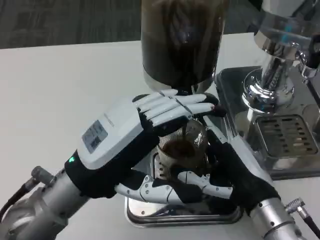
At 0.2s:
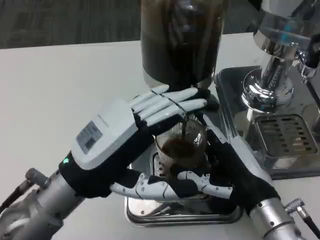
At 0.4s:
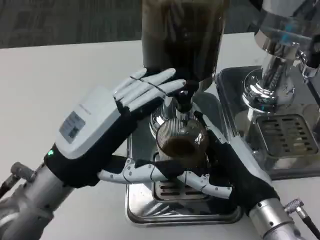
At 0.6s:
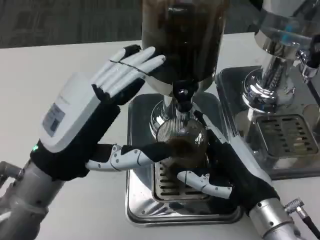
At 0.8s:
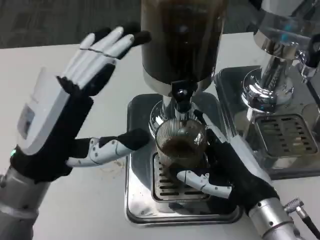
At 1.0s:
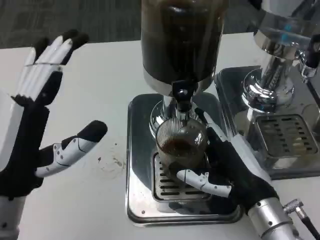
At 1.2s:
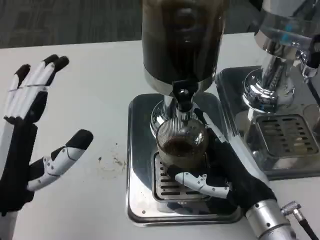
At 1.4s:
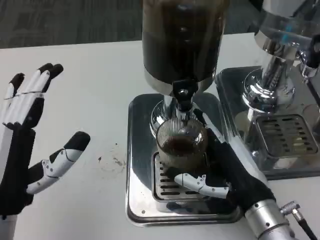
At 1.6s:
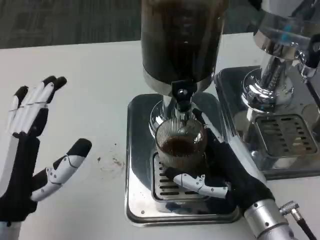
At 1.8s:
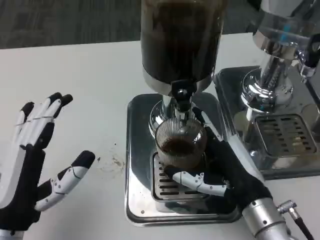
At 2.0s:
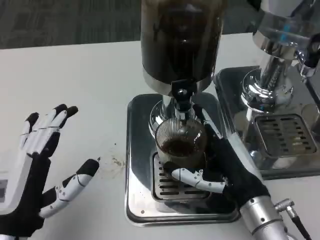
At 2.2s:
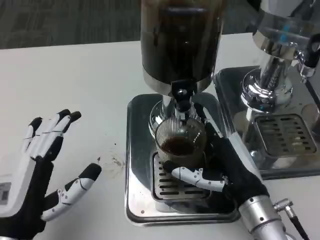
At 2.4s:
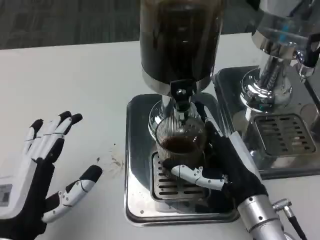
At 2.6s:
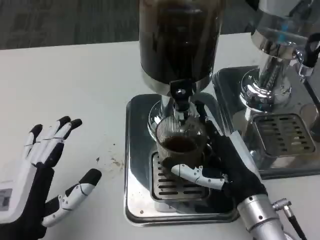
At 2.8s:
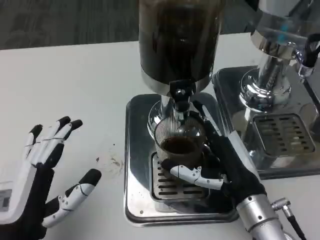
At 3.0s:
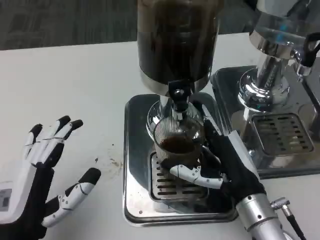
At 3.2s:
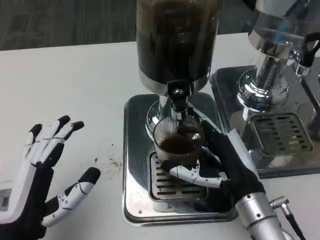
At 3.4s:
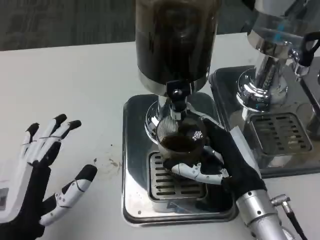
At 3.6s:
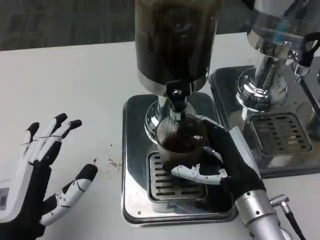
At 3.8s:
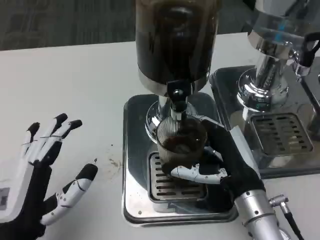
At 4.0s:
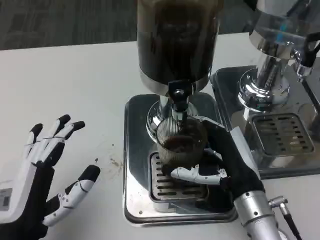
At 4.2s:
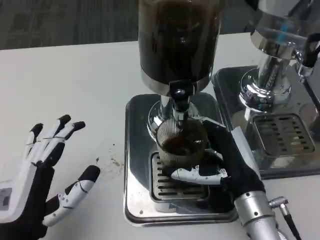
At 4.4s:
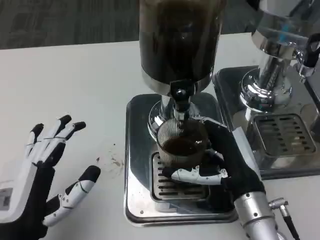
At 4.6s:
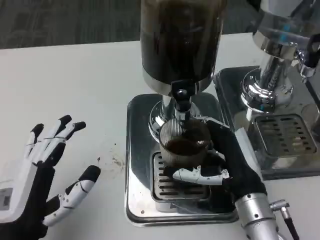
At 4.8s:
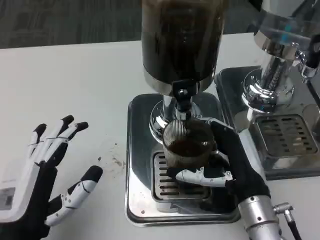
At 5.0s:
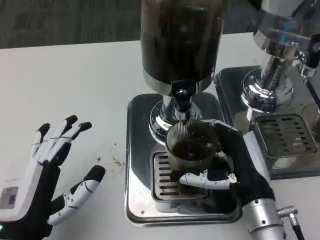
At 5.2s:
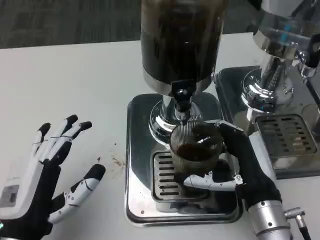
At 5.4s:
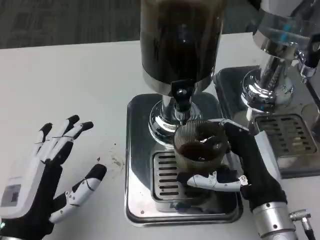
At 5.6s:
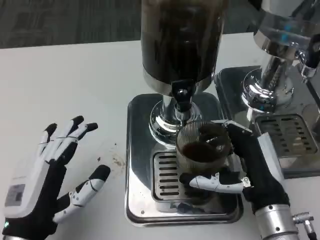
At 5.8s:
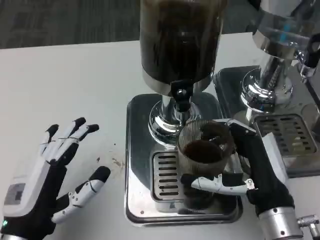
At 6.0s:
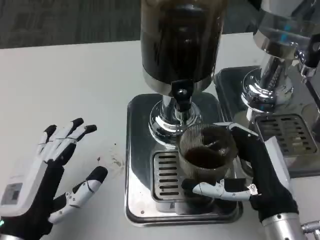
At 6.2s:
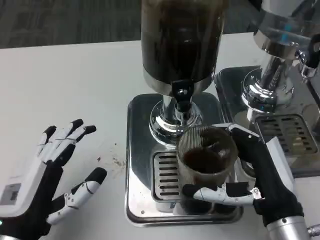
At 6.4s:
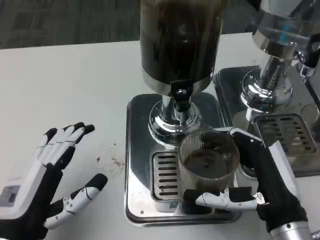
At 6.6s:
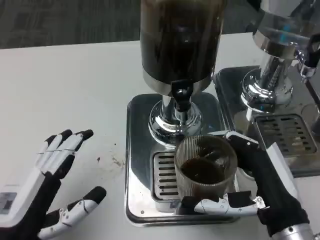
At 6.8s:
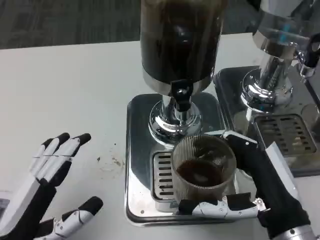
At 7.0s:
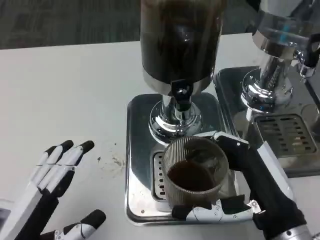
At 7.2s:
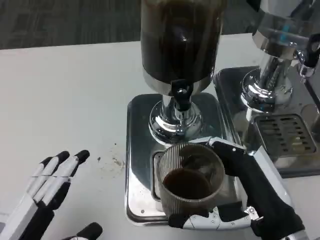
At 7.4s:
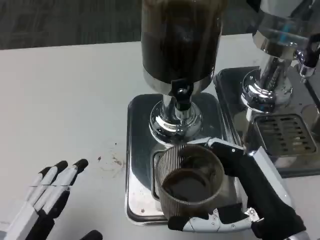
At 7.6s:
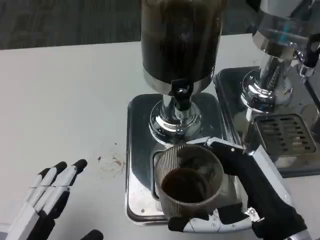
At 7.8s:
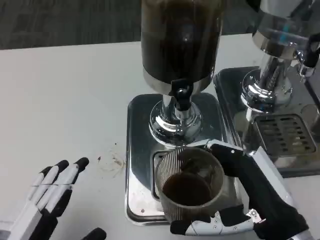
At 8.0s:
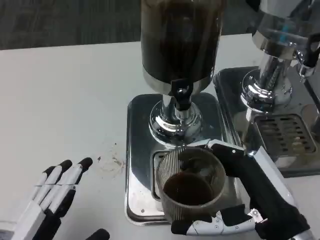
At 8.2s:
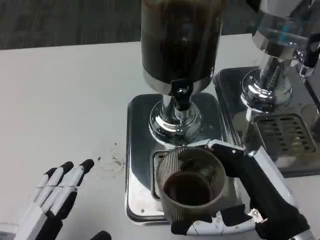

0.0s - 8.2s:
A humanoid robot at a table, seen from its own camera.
Task of the whole recording: Grasp the cup under the faucet to collect the drink, then remove the cup.
0.0s - 1.6s: The left hand travels to the left, downward and backward by some 10 cm.
5.0s - 6.6s: The right hand goes roughly 5 cm backward.
6.6s - 8.2s: The left hand shifts some 5 cm backward.

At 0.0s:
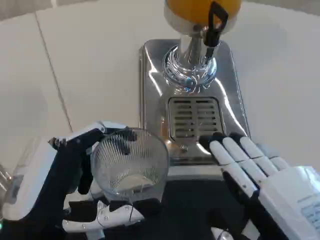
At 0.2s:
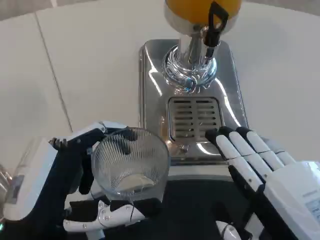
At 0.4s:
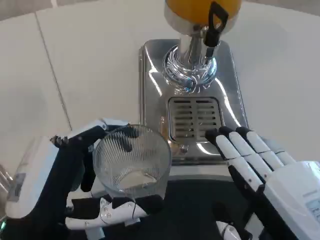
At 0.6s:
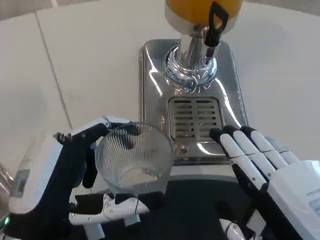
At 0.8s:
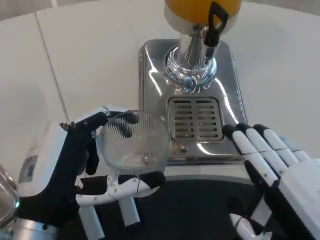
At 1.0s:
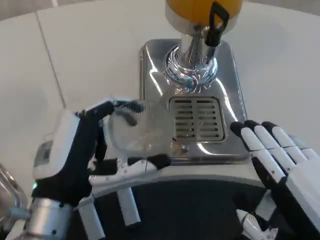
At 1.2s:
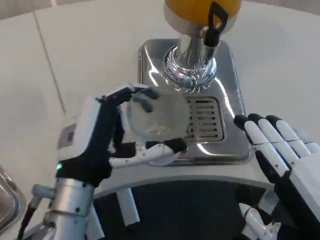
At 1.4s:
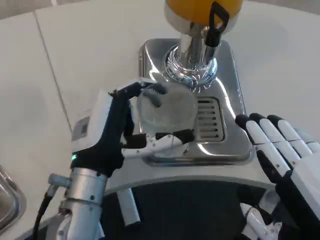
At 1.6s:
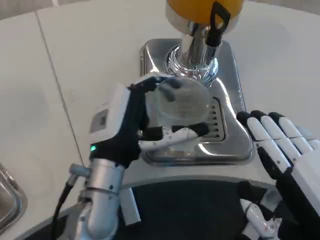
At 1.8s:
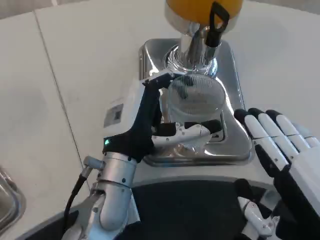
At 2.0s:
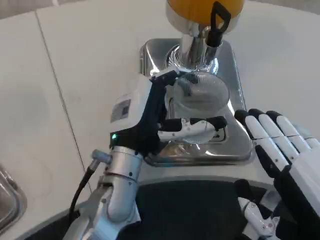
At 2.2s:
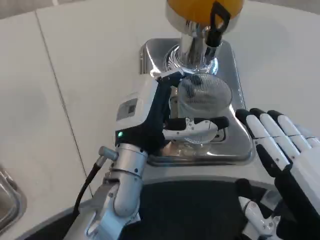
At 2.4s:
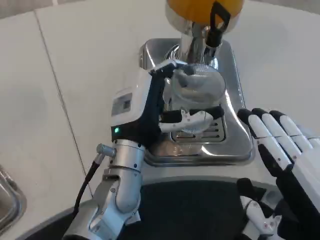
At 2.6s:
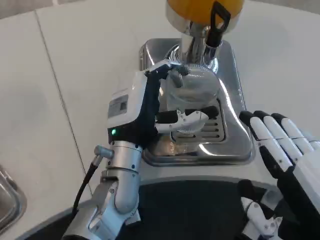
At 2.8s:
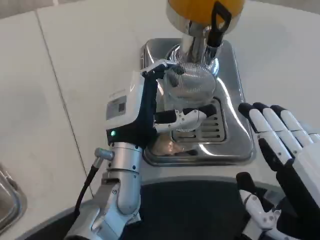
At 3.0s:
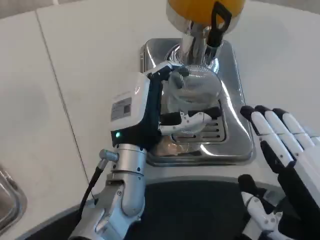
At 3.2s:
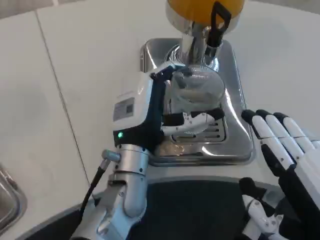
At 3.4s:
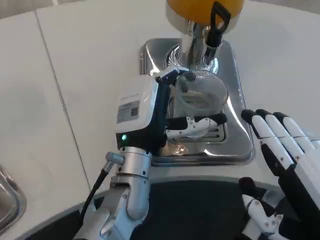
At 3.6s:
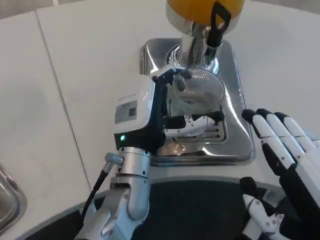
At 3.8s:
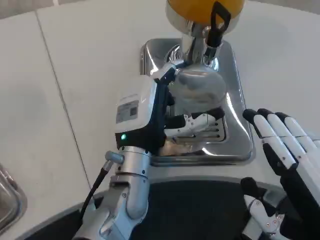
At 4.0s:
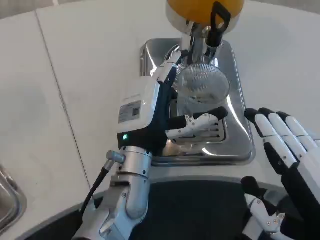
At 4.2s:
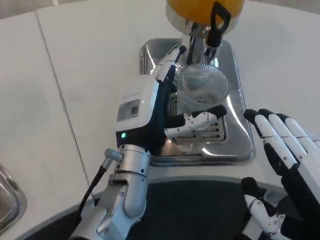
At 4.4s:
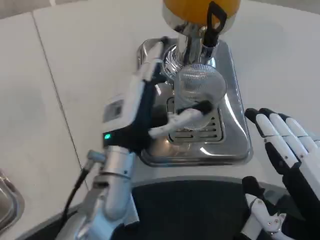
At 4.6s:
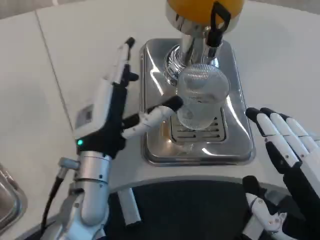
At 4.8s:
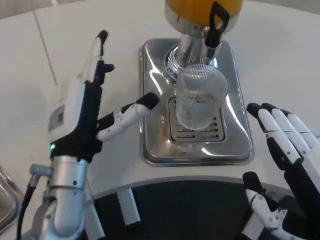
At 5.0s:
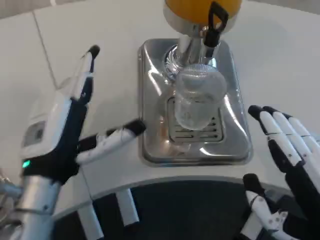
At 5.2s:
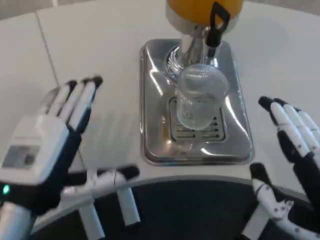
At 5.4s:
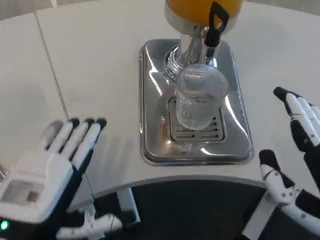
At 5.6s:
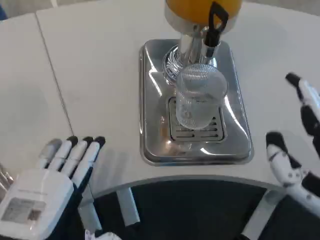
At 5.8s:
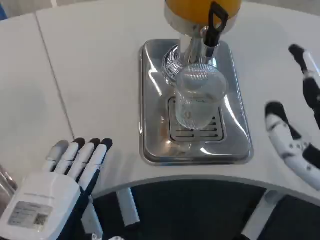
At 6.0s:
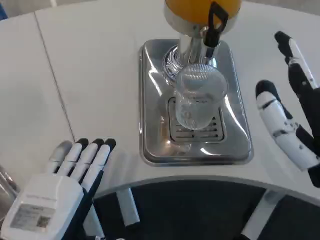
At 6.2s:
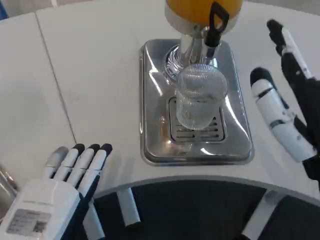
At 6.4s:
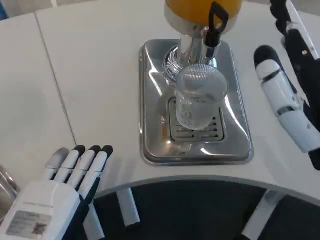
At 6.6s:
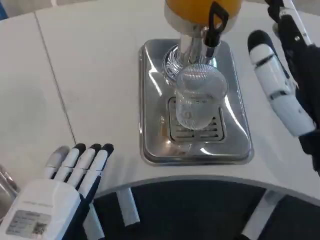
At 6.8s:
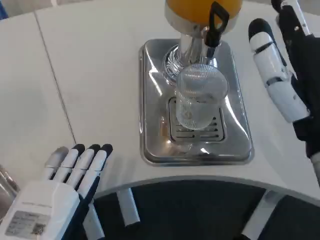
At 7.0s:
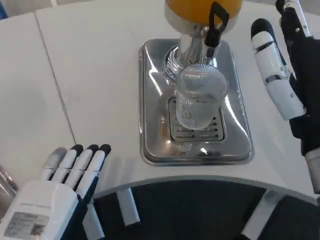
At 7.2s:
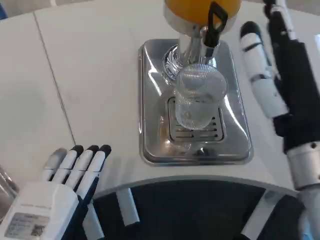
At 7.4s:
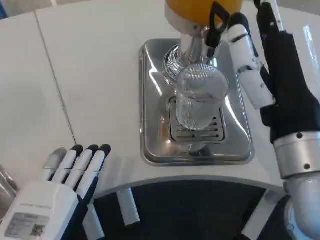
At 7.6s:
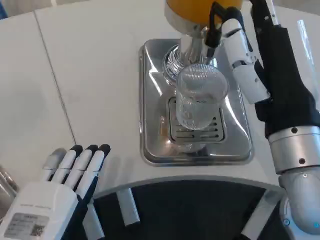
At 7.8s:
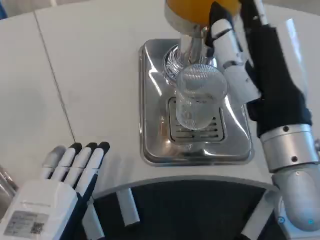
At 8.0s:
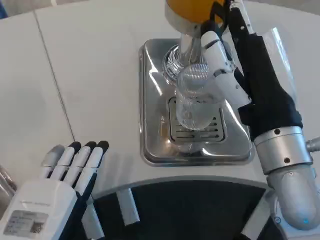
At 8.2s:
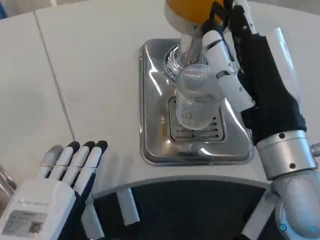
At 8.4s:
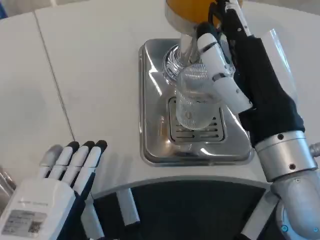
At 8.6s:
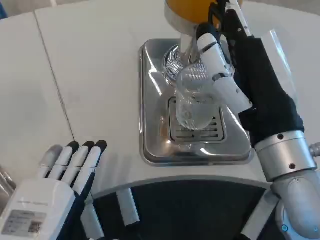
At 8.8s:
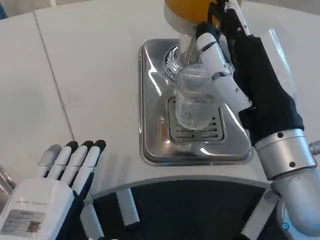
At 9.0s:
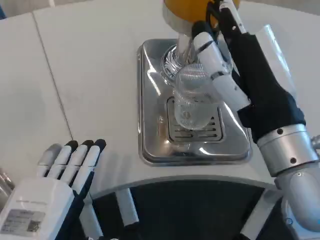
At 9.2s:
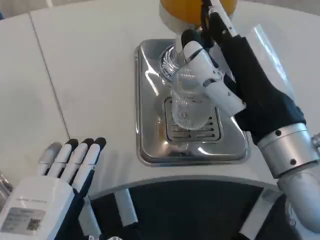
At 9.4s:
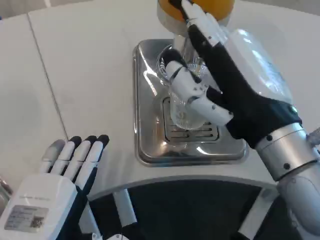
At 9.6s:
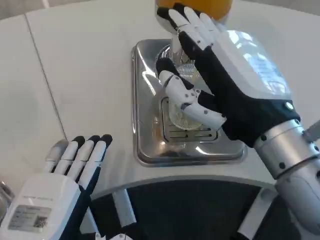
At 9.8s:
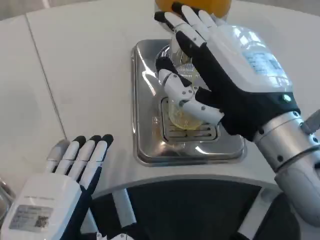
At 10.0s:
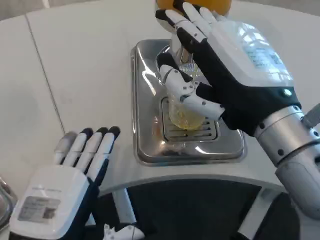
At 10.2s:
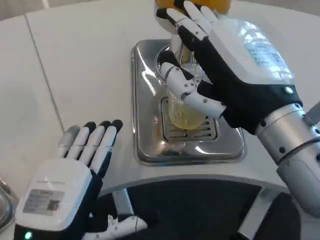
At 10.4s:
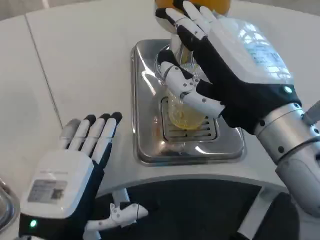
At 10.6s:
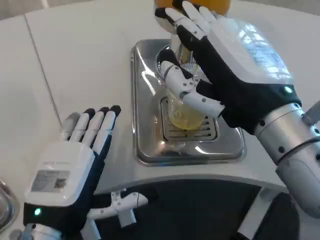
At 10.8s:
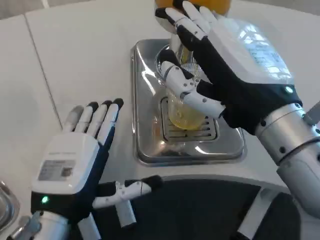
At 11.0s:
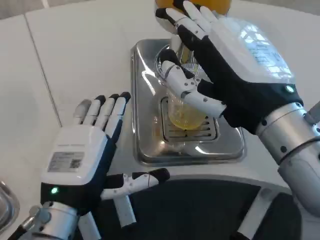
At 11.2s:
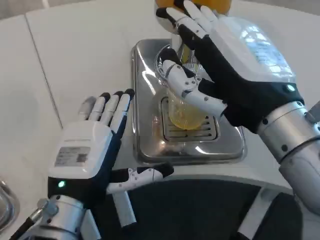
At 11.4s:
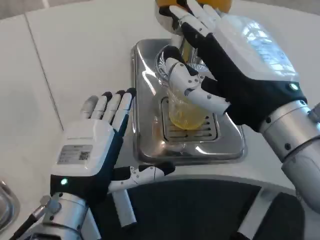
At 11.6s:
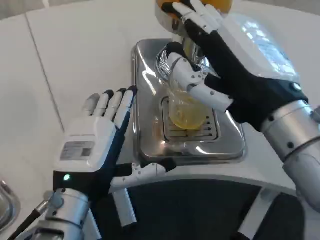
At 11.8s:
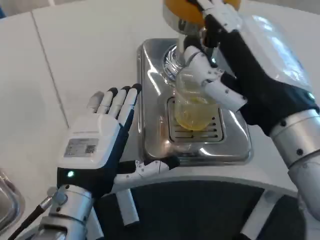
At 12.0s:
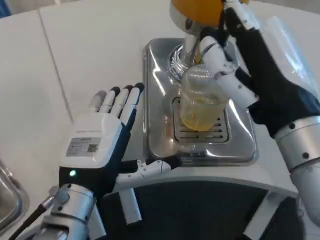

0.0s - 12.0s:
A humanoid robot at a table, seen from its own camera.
Task of the whole recording: Grasp the cup under the faucet to collect the drink, then remove the cup.
0.0s - 1.6s: The left hand travels forward and to the right by some 15 cm.
4.4s - 6.0s: The right hand travels forward by roughly 5 cm, while the left hand is displaced backward and to the left by some 20 cm.
6.0s - 7.6s: The right hand is displaced forward by some 5 cm.
10.4s - 12.0s: The left hand heads forward, covering roughly 5 cm.

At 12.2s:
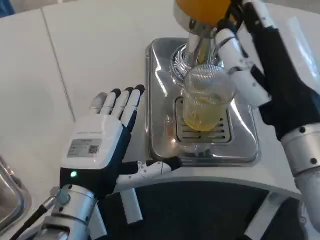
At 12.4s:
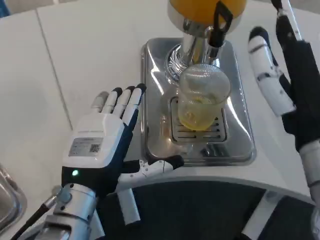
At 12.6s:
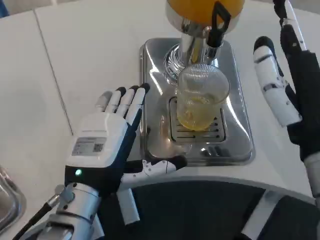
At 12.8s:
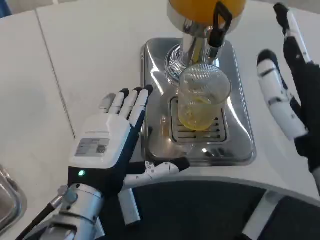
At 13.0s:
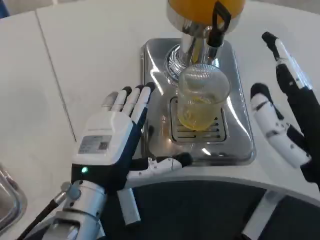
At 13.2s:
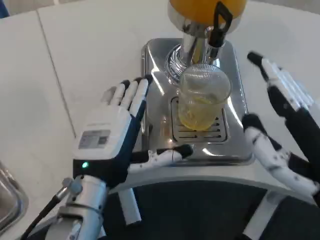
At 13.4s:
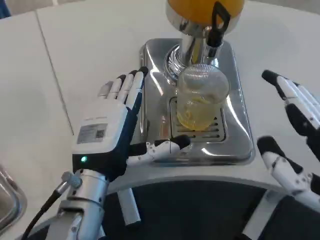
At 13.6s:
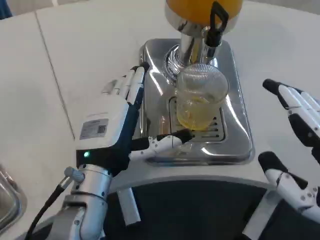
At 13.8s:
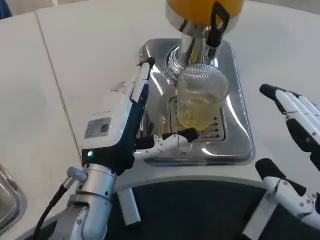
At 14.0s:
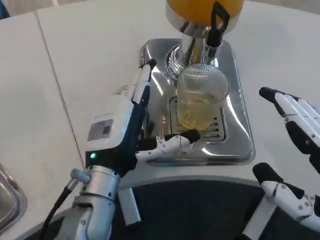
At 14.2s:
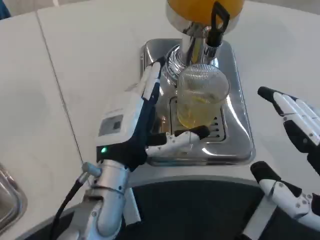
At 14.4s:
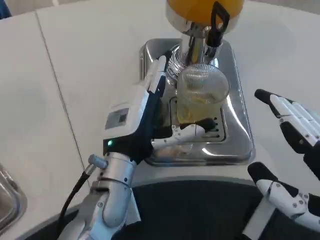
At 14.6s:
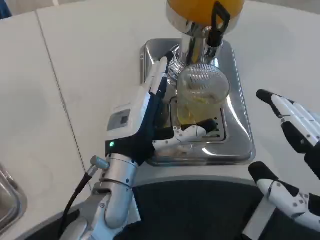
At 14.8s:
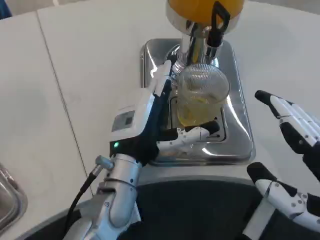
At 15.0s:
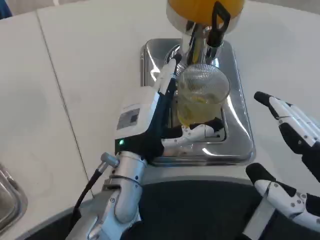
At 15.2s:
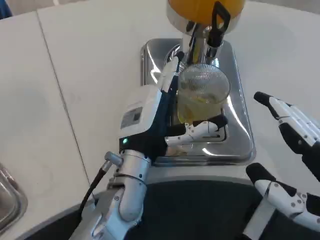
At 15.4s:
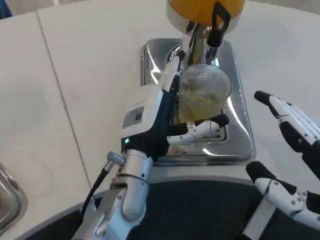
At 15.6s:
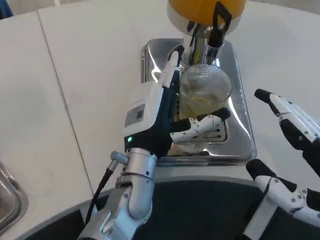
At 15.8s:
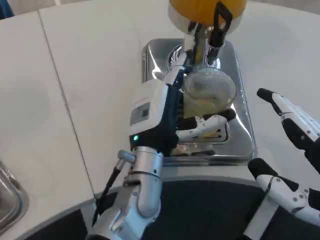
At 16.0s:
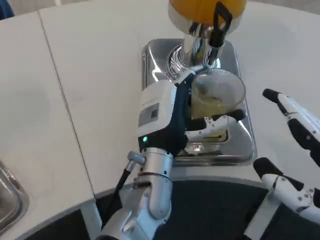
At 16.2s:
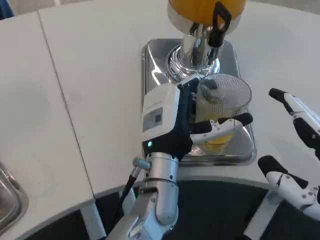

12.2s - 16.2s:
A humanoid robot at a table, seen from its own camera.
Task of the whole recording: Grasp the cup under the faucet to collect the drink, then remove the cup.
12.2s - 13.6s: The right hand travels to the right and backward by approximately 10 cm.
14.8s - 16.2s: The left hand is displaced to the right by approximately 5 cm.
